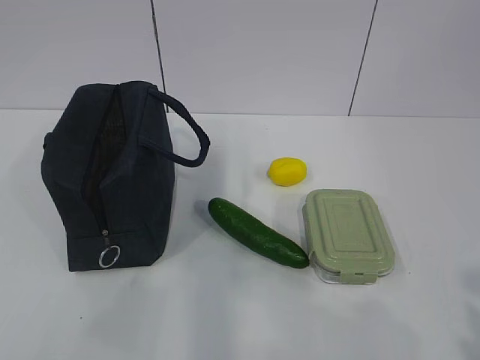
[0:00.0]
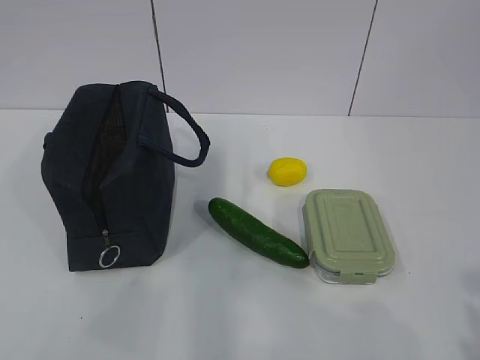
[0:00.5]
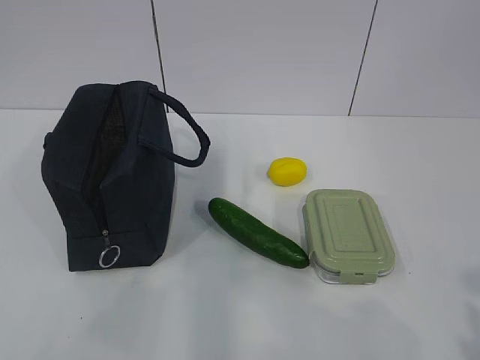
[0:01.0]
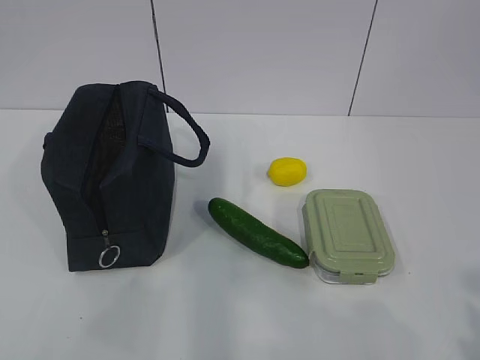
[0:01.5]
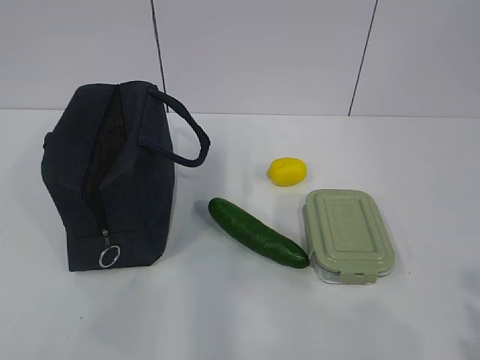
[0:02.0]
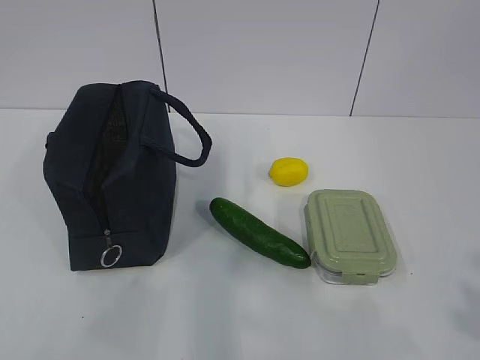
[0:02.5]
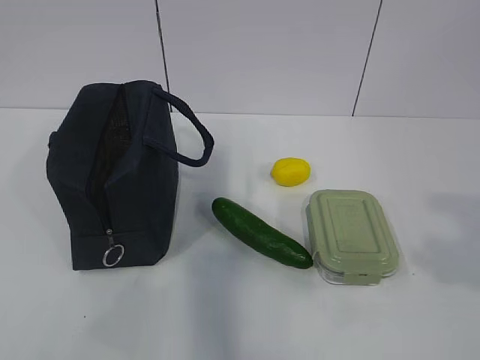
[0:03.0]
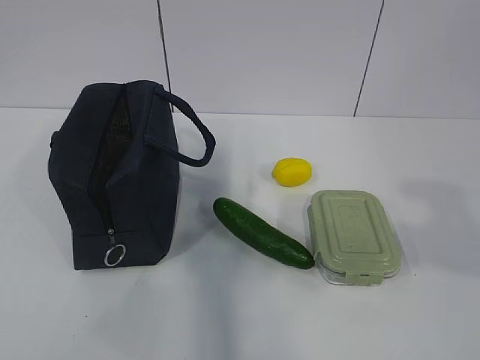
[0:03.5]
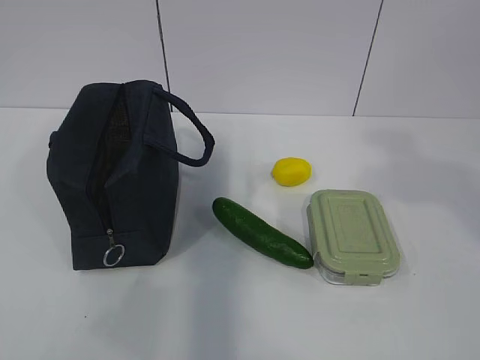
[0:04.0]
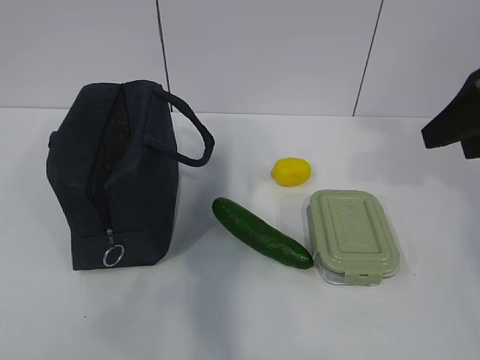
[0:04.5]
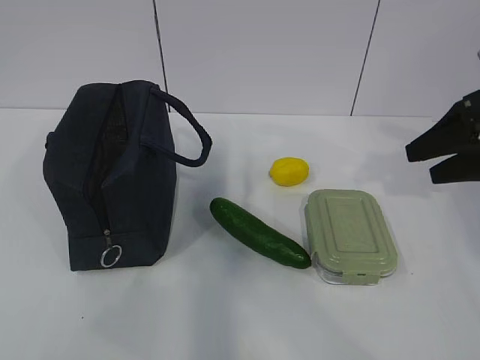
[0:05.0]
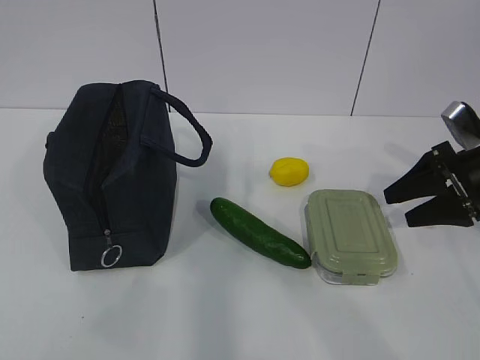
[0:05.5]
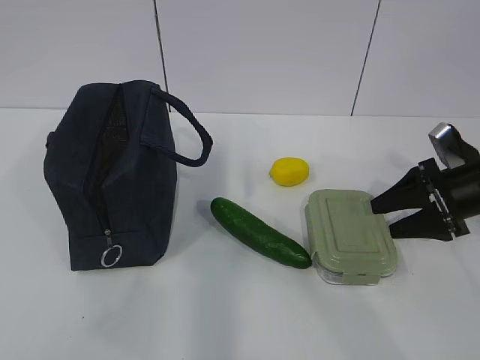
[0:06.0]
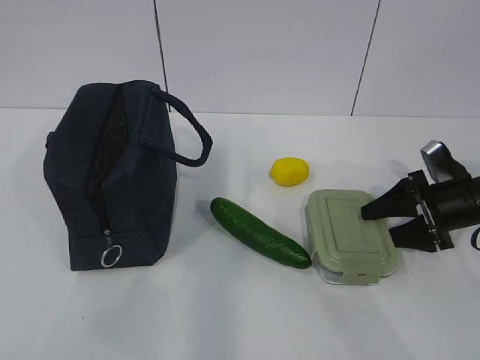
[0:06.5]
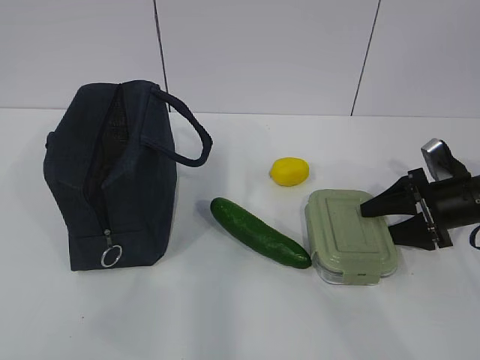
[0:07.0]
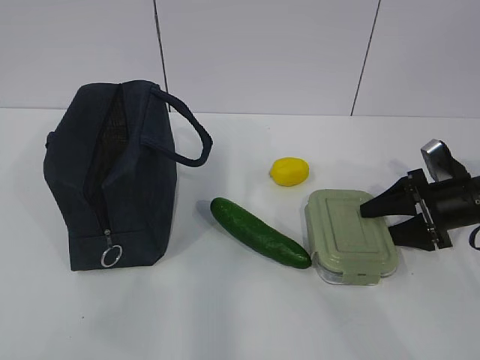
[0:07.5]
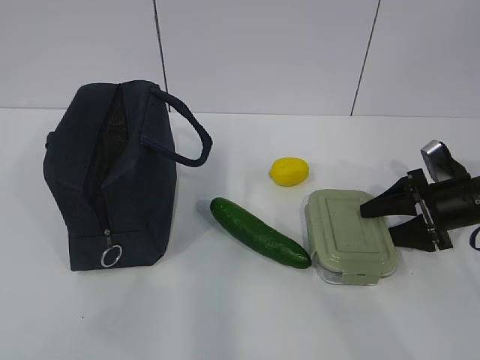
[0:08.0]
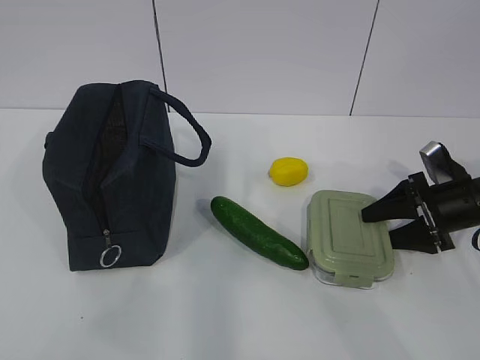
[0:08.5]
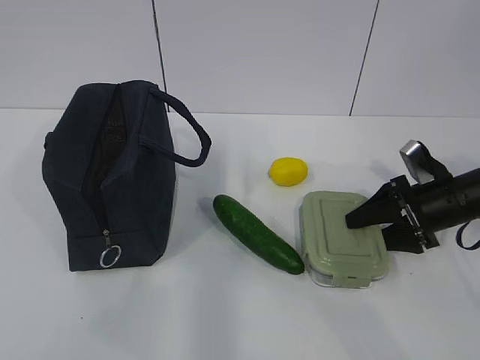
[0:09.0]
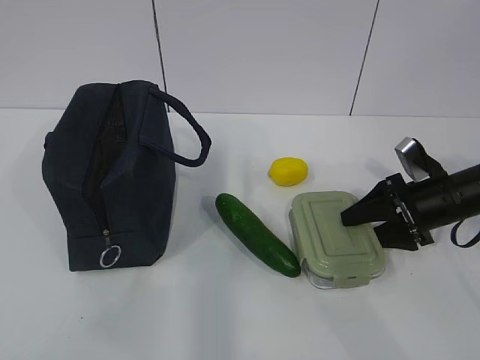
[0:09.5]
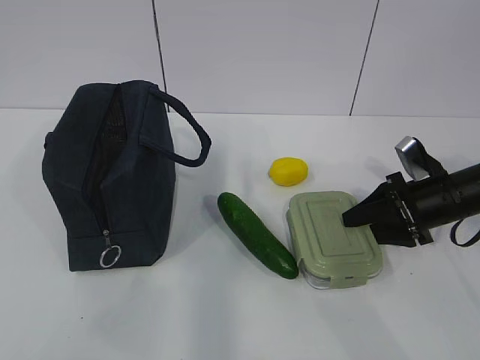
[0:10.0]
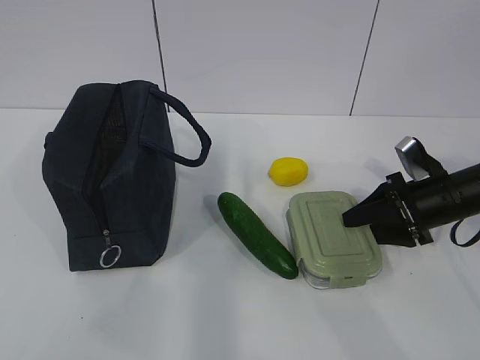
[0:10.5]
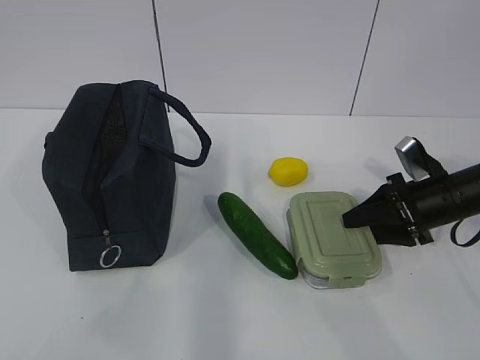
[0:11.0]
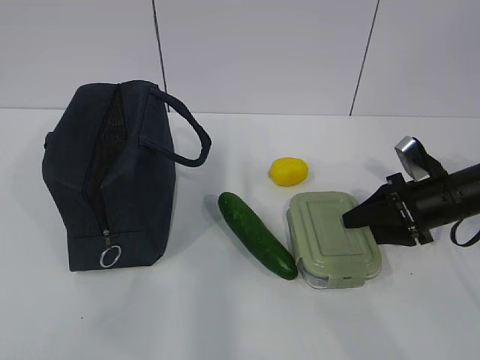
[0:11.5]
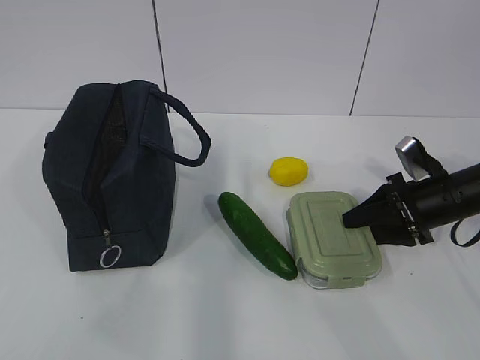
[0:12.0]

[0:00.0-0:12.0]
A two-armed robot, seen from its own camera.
0:02.0 to 0:04.0: The right gripper travels forward and upward by roughly 20 cm.
0:04.0 to 0:06.0: The right gripper moves downward and forward, about 30 cm.
0:06.0 to 0:10.0: The grippers stay close to where they were, moving slightly.
0:10.0 to 0:12.0: The two grippers keep their place.

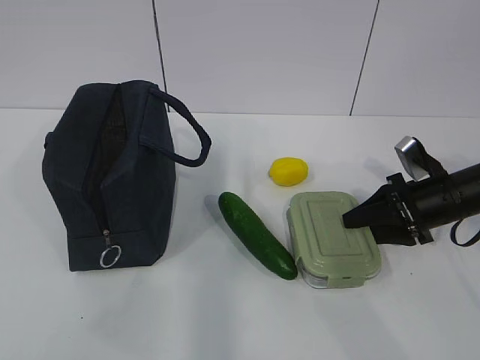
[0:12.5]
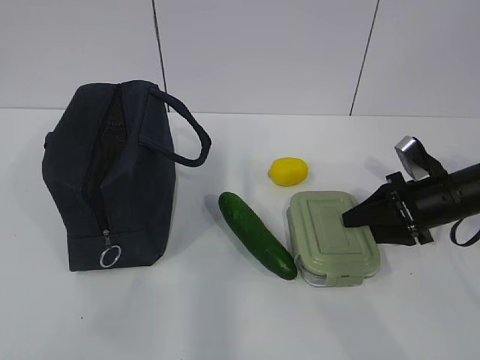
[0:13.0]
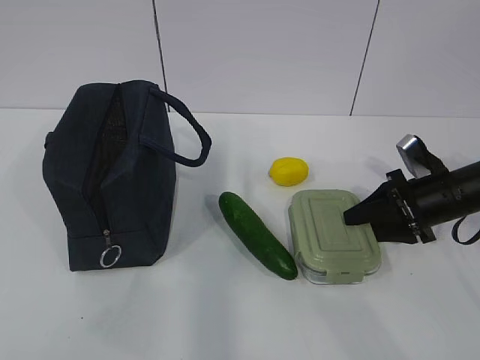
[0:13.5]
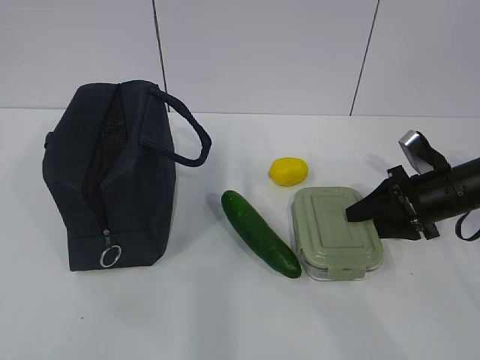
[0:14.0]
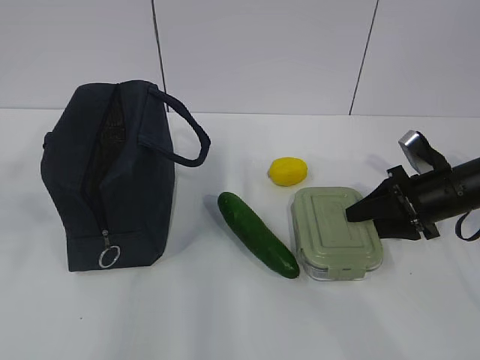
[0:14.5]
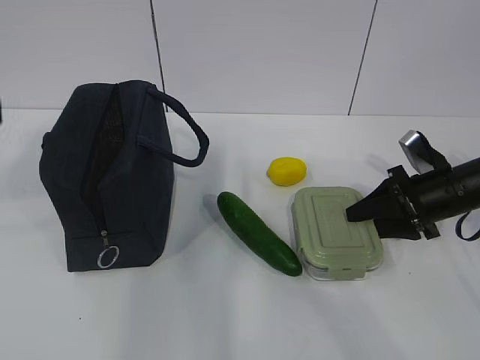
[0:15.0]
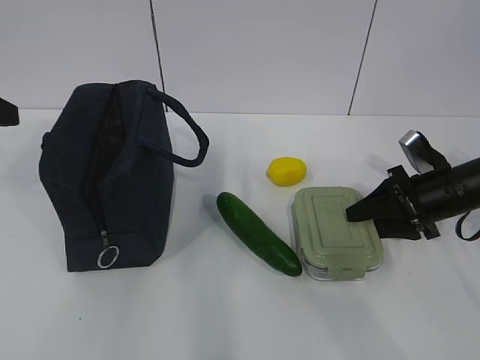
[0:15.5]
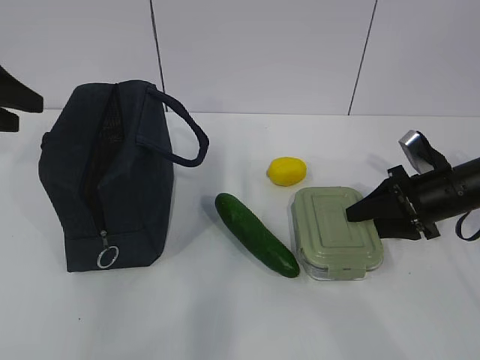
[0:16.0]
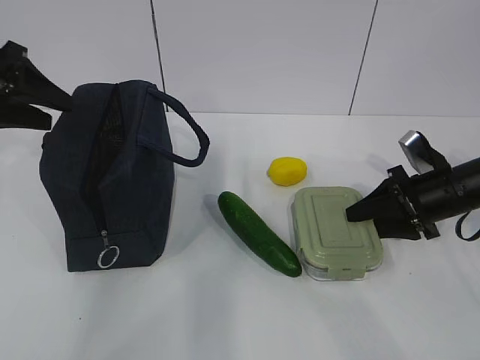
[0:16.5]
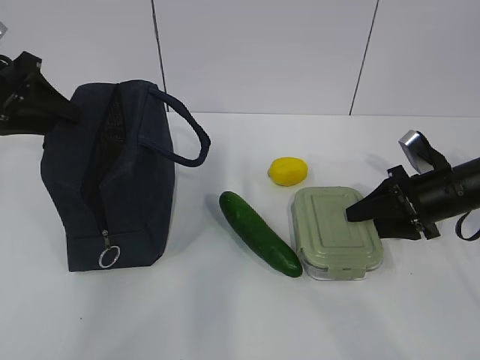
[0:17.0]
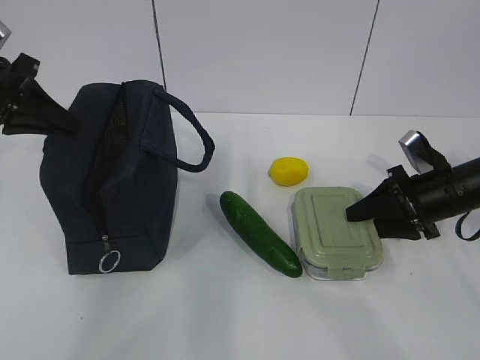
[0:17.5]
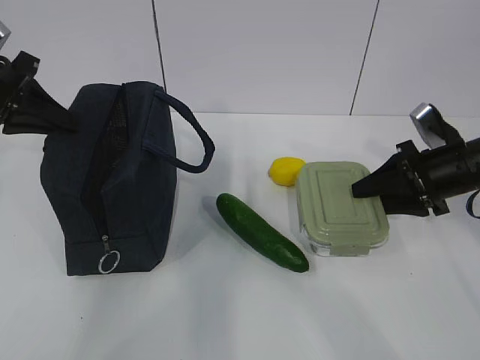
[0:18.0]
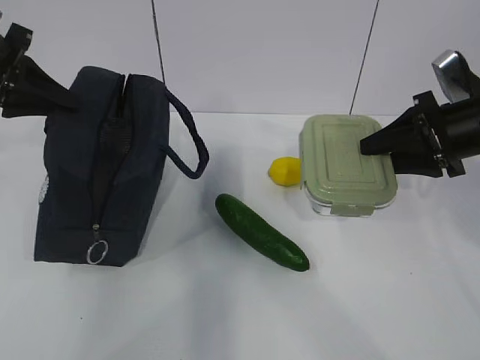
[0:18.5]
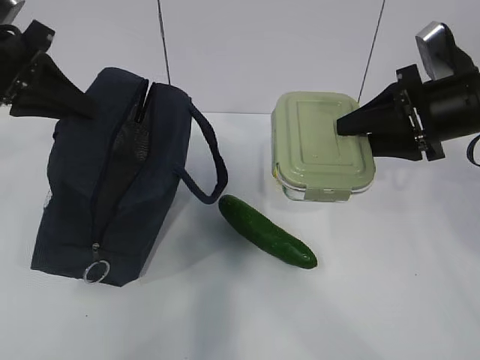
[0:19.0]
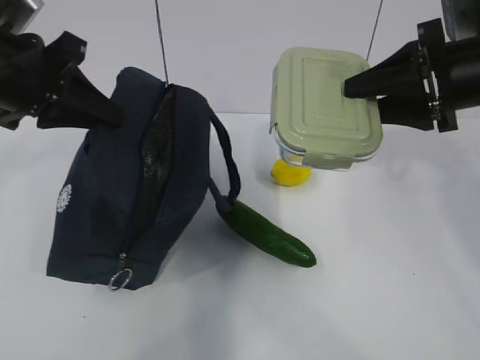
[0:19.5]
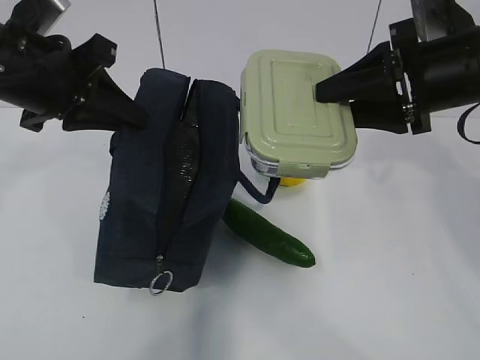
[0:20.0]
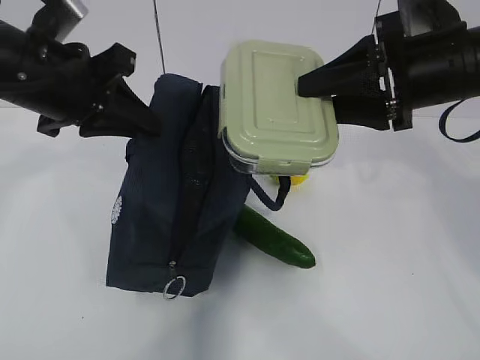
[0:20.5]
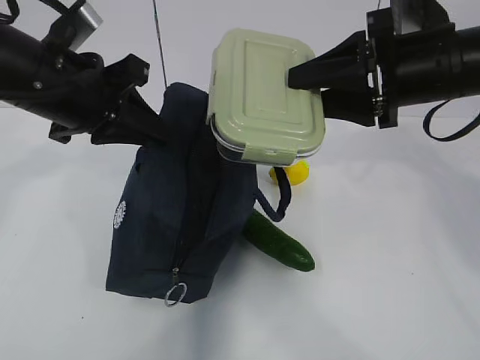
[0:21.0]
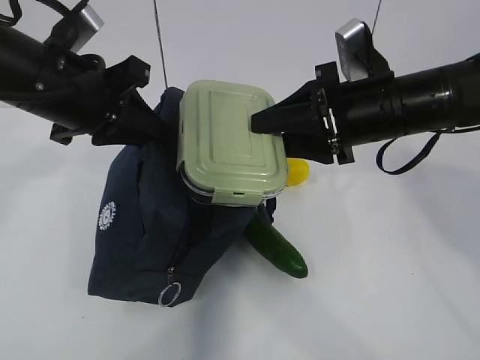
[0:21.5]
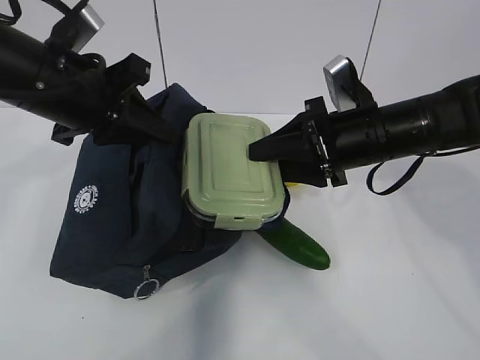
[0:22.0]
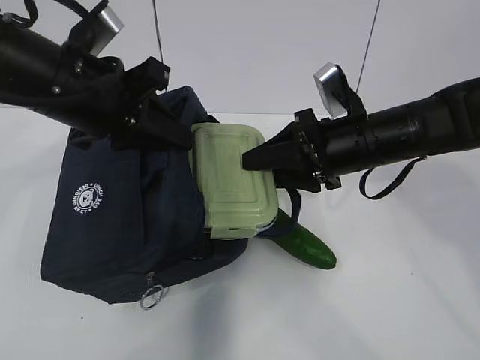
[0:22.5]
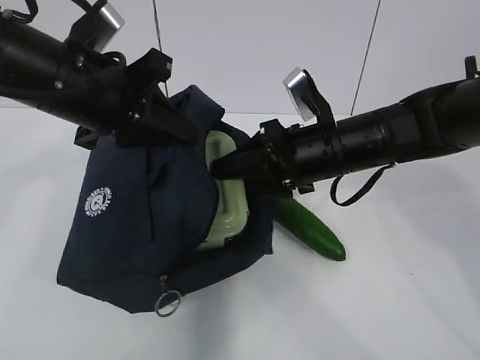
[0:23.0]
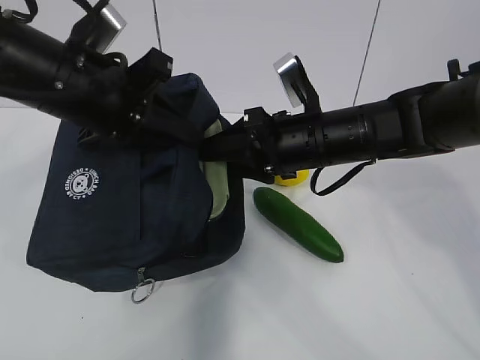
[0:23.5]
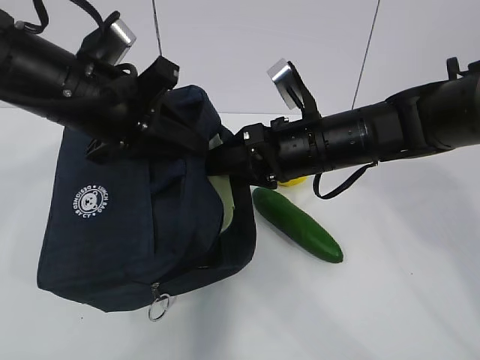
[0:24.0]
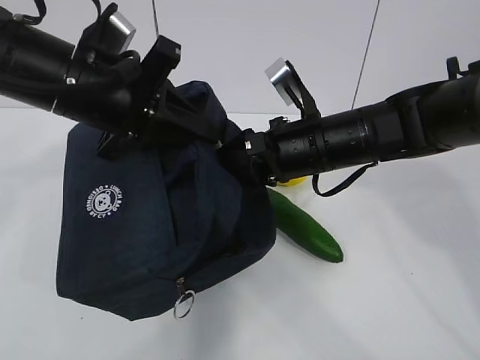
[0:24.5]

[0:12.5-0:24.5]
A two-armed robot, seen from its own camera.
Step, 0:14.5 to 0:17.5: Grab the lunch bag with your left hand.
Step, 0:18.0 to 0:23.0: Place it into the bag with your right hand.
0:12.5 to 0:14.5: The left gripper shifts roughly 10 cm forward and upward.
0:14.5 to 0:16.5: The left gripper travels forward by some 30 cm.
0:16.5 to 0:18.5: The right gripper travels upward by approximately 10 cm. Meanwhile the left gripper closes up.
0:18.5 to 0:20.5: The right gripper shifts approximately 10 cm to the left and upward, while the left gripper travels to the right and backward by about 15 cm.
0:20.5 to 0:22.5: The right gripper is displaced downward and to the left by roughly 10 cm.
0:22.5 to 0:24.5: The right gripper shifts some 5 cm to the left.

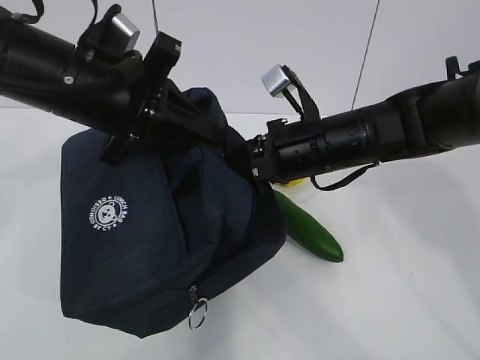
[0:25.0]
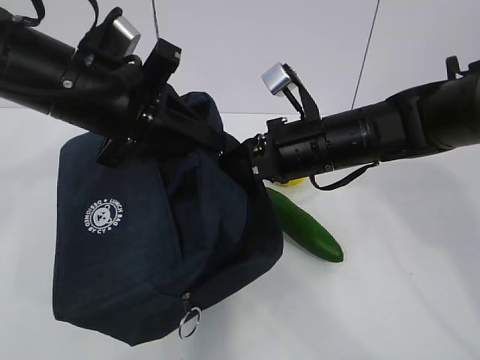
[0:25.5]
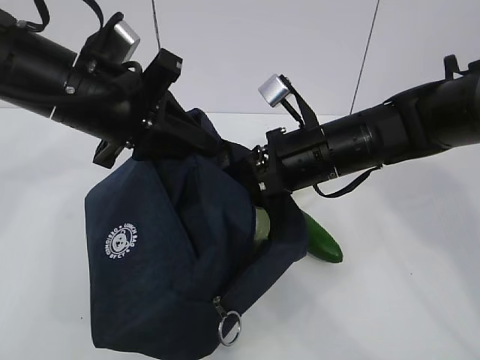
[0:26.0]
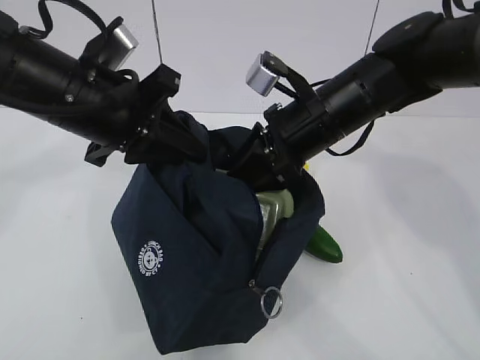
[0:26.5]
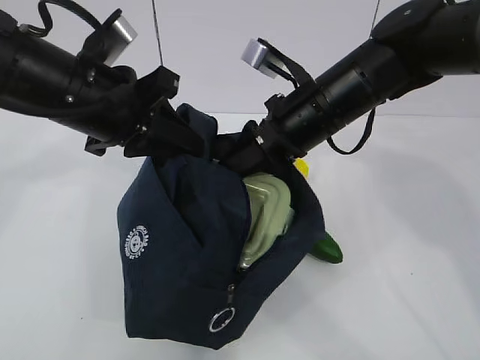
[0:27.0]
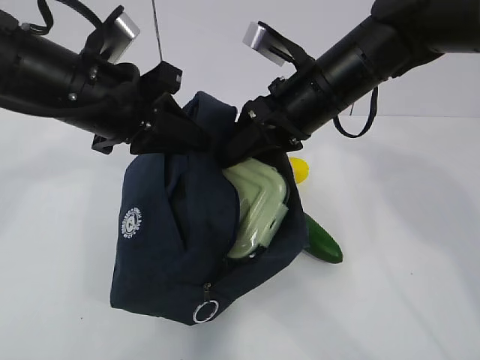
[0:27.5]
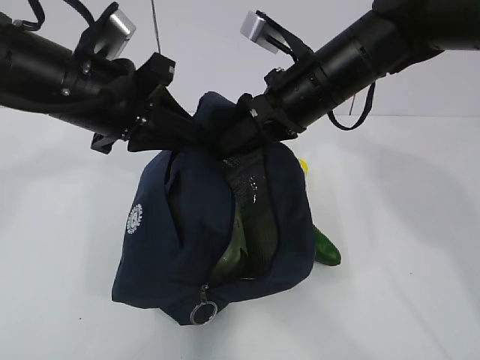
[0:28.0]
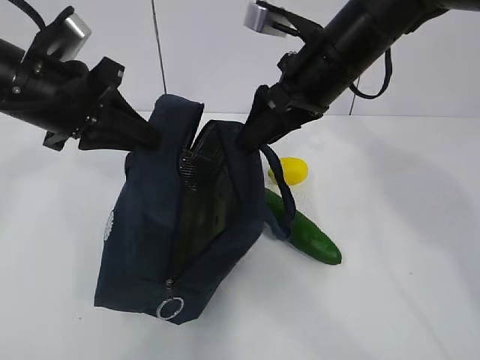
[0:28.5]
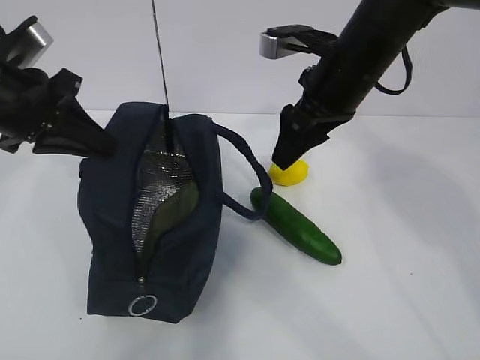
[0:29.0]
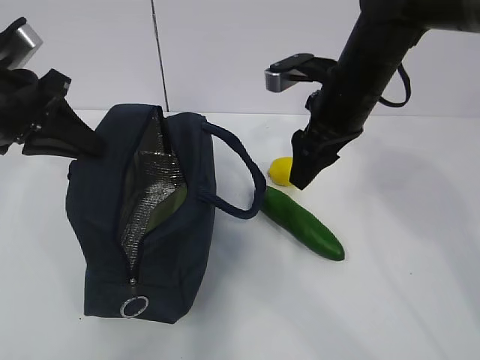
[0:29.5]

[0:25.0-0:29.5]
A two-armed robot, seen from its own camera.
0:27.0 to 0:29.5: The left gripper is displaced to the left by about 10 cm, while the right gripper changes place by roughly 5 cm.
